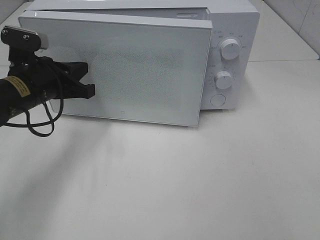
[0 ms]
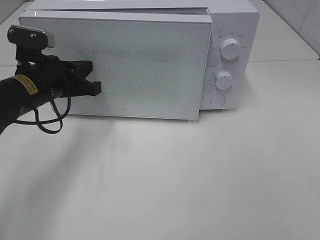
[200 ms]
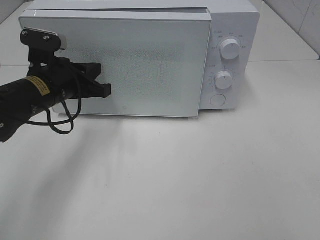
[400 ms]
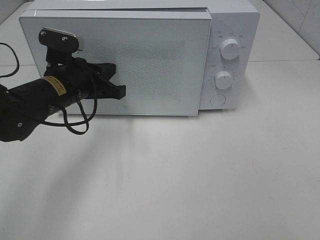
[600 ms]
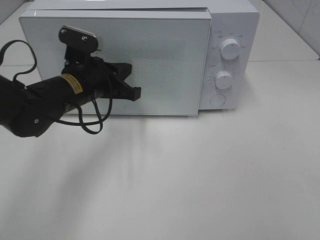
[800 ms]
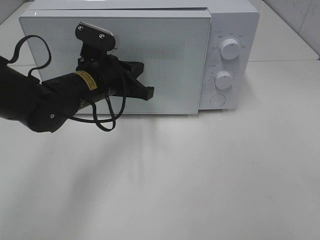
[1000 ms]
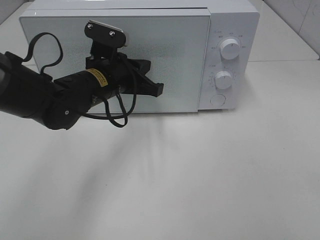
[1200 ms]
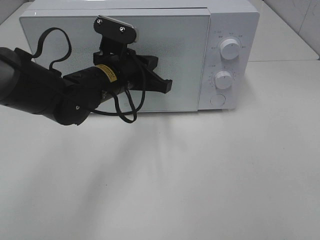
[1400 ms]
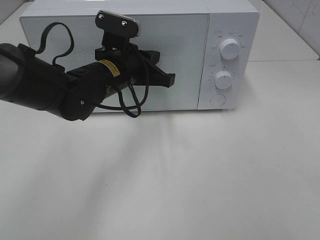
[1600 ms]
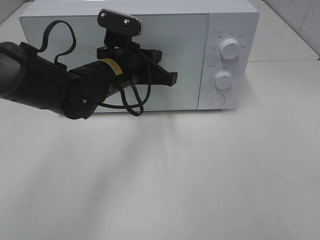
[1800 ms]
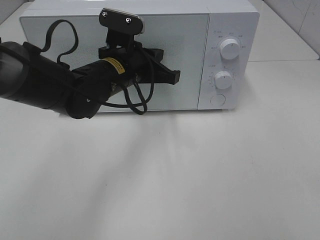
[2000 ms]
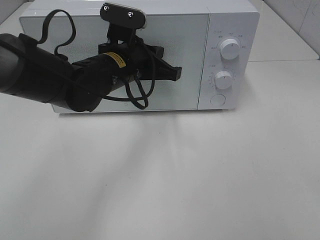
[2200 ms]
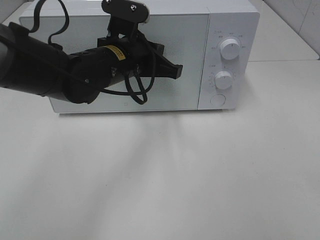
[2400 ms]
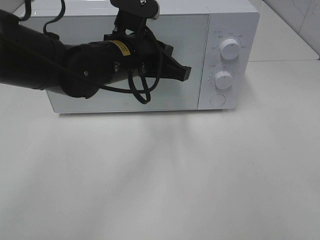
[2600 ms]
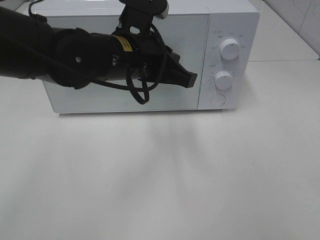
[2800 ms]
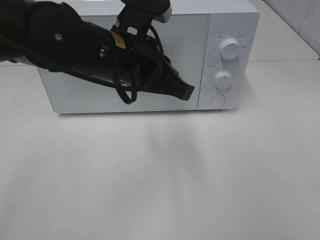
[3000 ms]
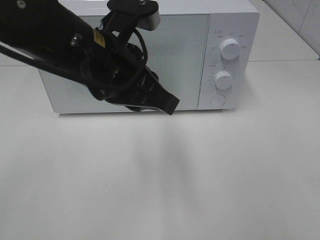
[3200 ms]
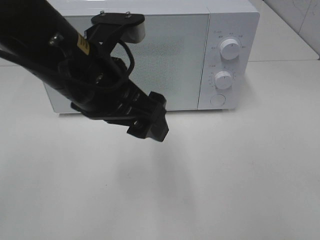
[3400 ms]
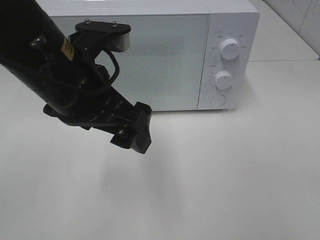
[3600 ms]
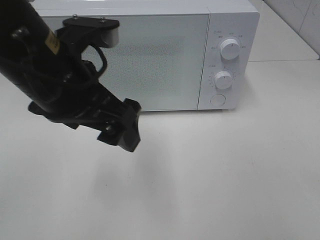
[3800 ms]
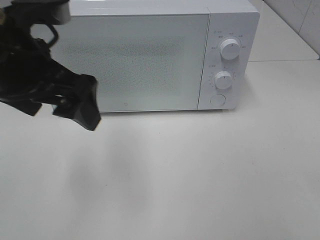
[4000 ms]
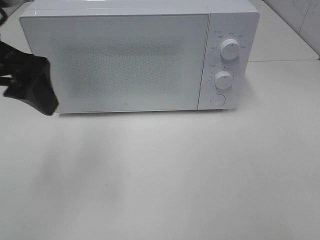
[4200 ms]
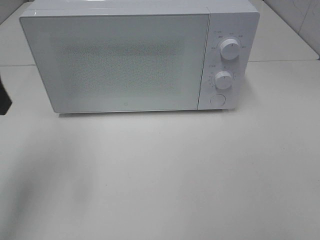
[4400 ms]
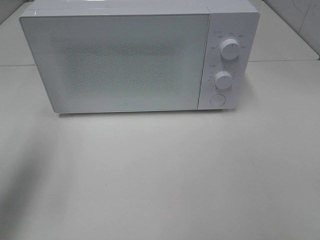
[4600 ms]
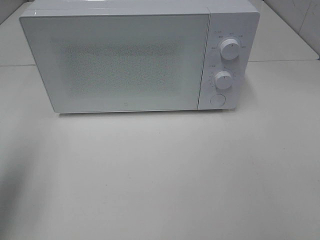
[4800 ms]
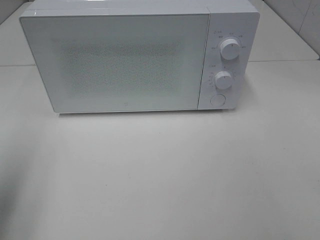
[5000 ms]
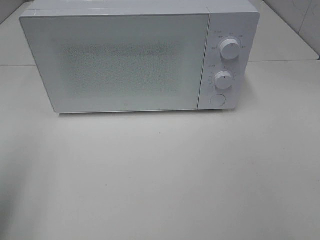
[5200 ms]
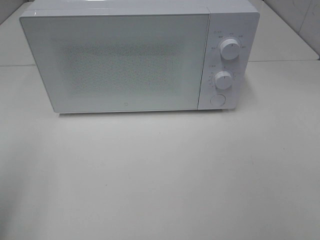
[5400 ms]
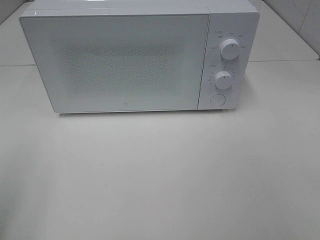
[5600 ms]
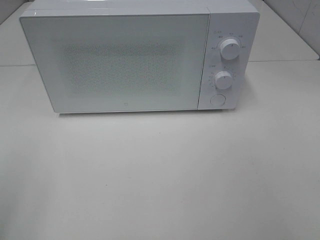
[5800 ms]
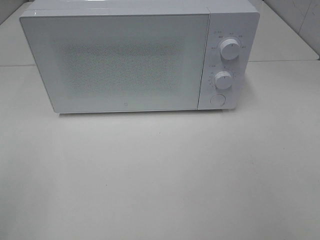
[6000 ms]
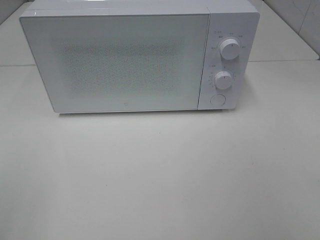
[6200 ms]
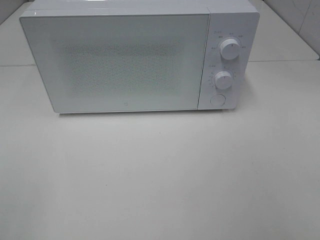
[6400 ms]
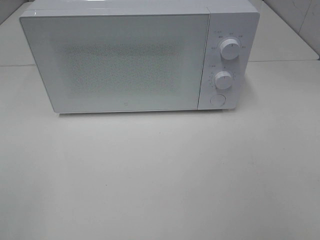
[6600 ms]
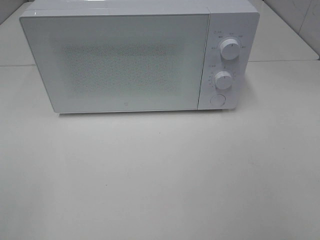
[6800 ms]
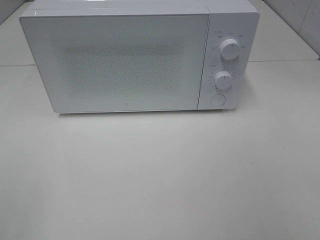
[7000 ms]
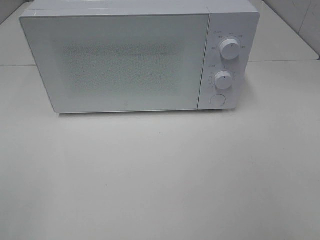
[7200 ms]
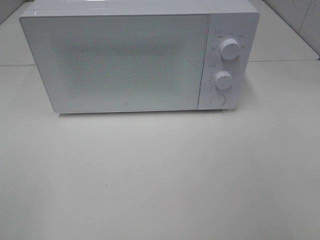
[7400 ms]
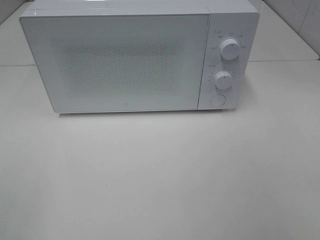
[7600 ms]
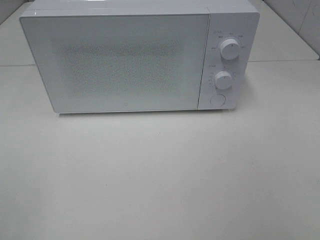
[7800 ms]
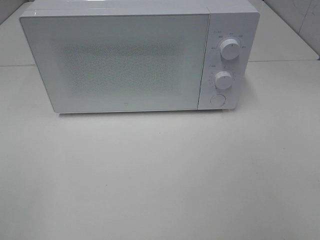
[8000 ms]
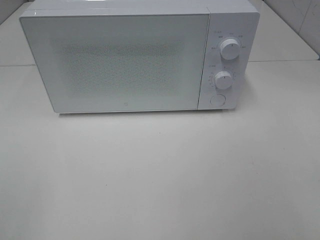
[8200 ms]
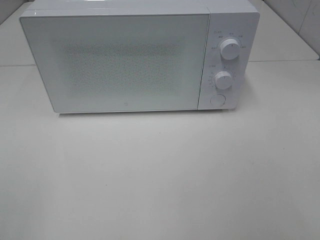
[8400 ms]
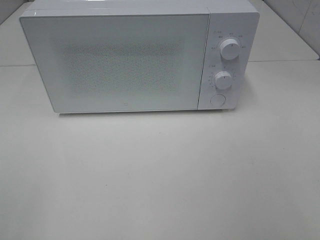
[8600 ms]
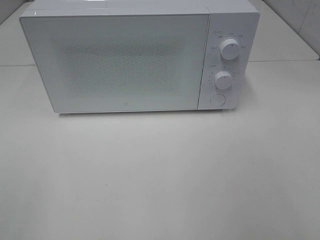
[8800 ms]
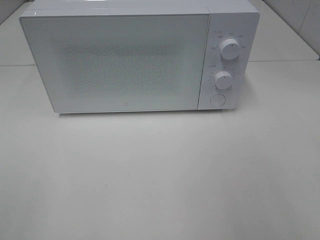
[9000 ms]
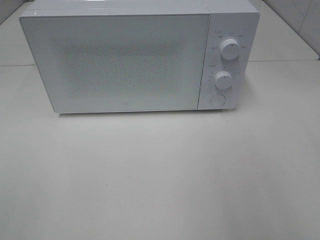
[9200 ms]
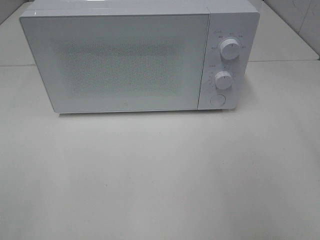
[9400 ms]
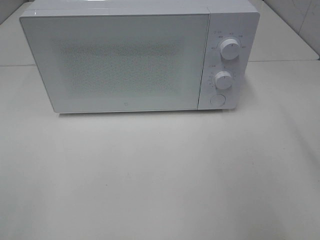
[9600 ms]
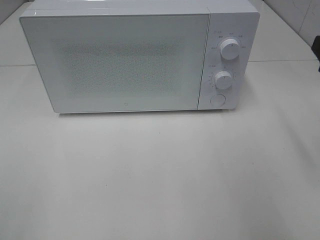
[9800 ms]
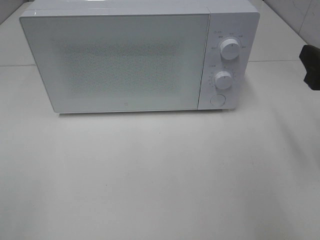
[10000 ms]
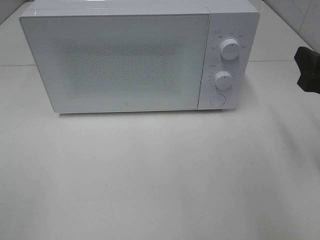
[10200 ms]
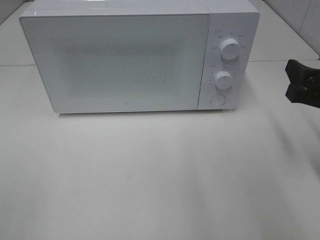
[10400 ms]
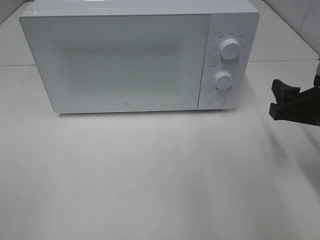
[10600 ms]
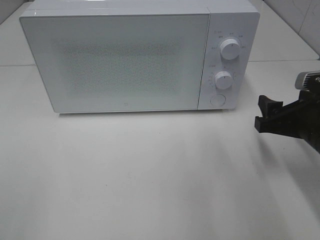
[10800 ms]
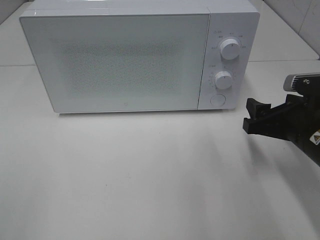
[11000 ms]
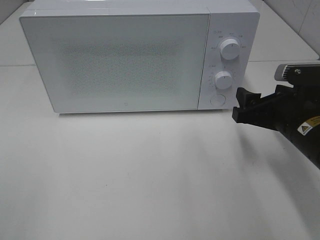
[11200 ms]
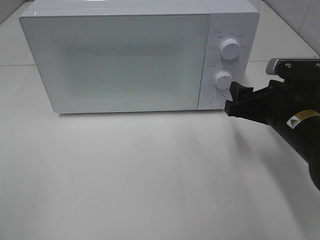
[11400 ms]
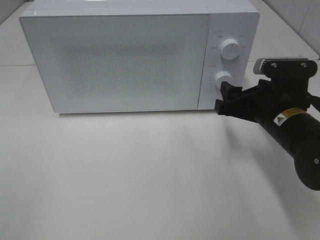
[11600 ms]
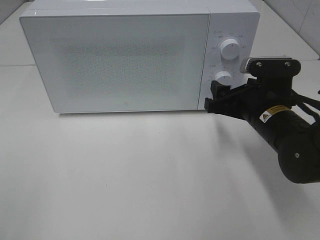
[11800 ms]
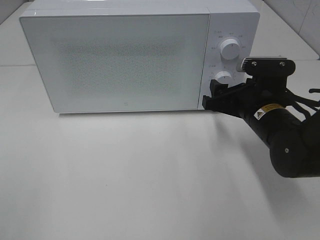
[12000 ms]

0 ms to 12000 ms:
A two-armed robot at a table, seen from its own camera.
Task of the whole recording: Heat the burger.
0 ms to 1600 ms: The left gripper moves to the right, about 15 cm.
1600 ms to 3000 ms: The left gripper heads backward and upward, covering about 10 cm.
3000 ms to 4400 ms: The left gripper goes about 20 cm to the left, and opens.
4400 ms to 6000 ms: The left gripper shifts approximately 20 cm backward.
9000 ms to 10400 ms: The right gripper goes about 20 cm forward and downward.
10400 ms to 12000 ms: The right gripper shifts some 15 cm to the left, forward and downward.

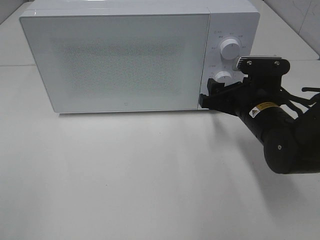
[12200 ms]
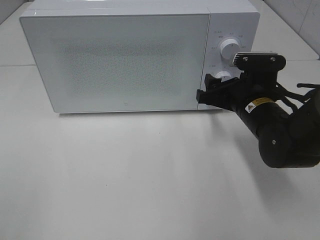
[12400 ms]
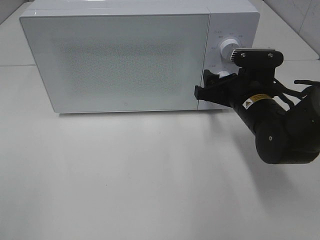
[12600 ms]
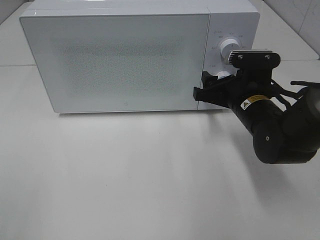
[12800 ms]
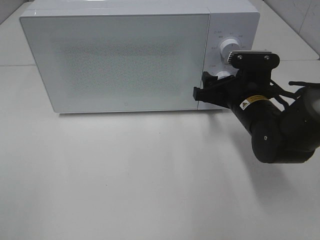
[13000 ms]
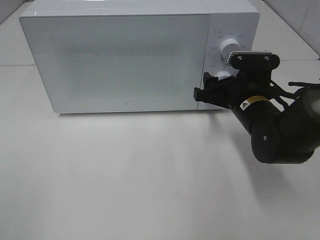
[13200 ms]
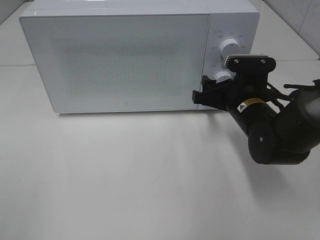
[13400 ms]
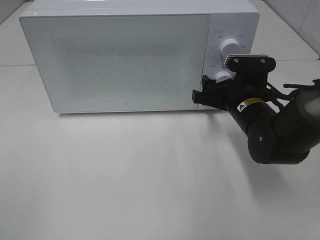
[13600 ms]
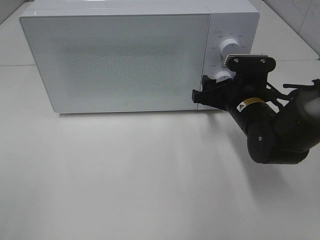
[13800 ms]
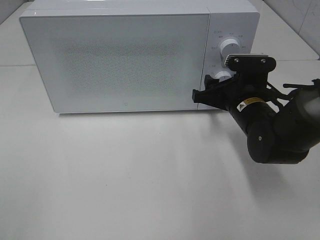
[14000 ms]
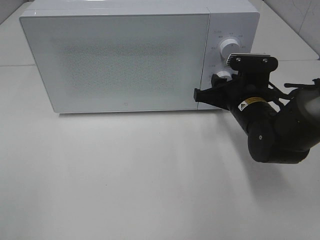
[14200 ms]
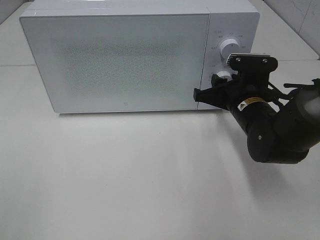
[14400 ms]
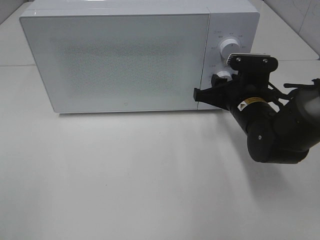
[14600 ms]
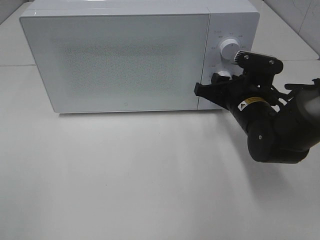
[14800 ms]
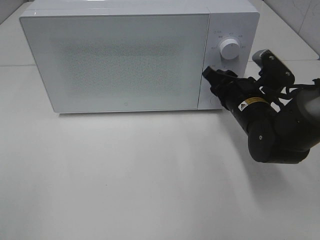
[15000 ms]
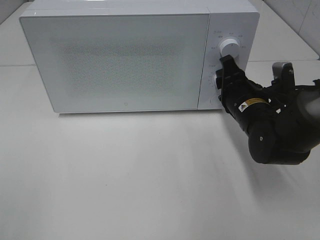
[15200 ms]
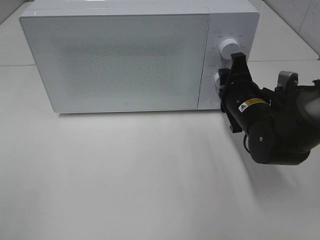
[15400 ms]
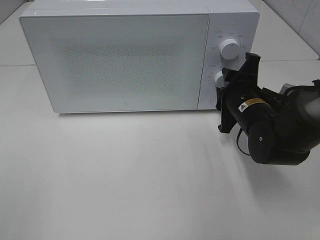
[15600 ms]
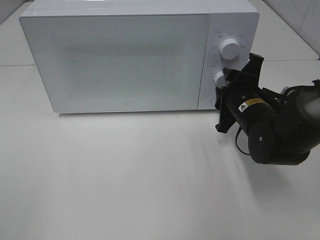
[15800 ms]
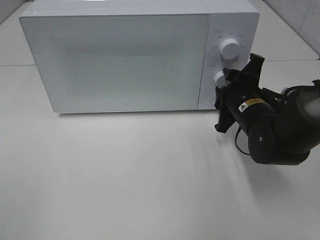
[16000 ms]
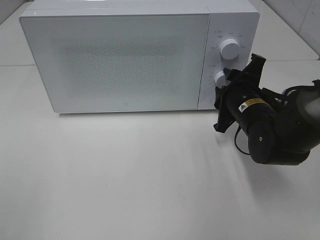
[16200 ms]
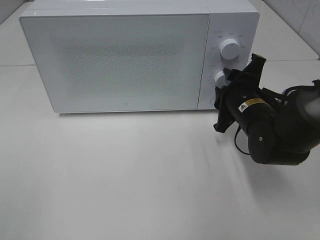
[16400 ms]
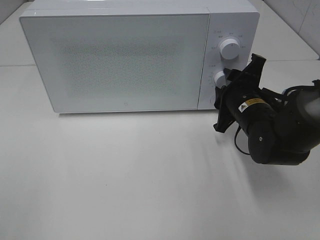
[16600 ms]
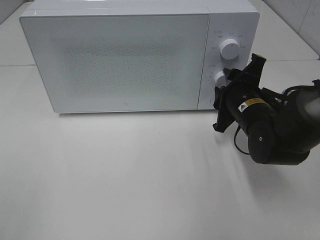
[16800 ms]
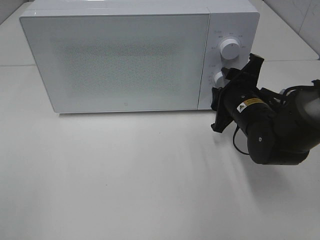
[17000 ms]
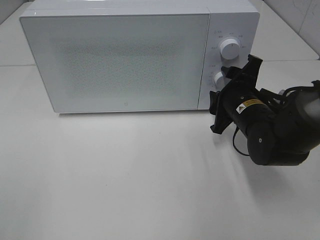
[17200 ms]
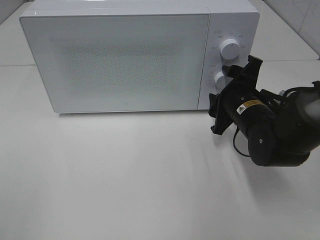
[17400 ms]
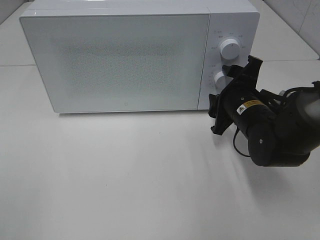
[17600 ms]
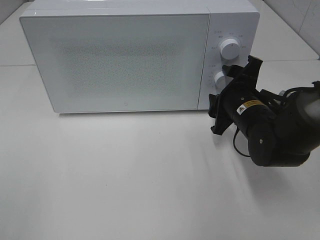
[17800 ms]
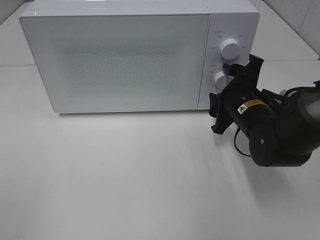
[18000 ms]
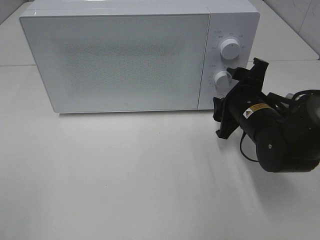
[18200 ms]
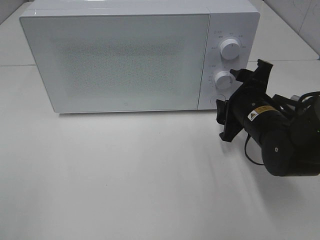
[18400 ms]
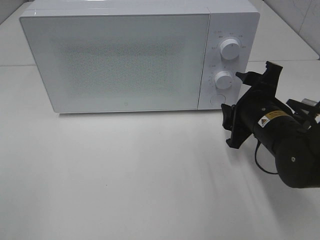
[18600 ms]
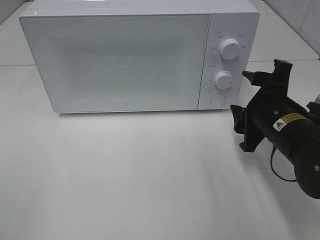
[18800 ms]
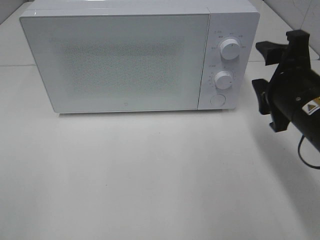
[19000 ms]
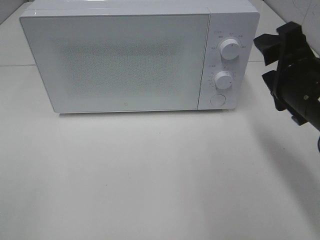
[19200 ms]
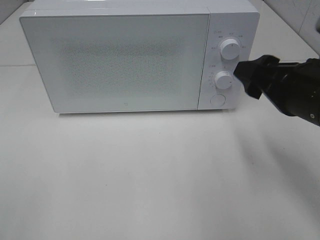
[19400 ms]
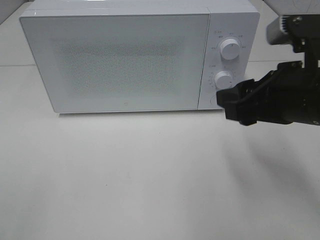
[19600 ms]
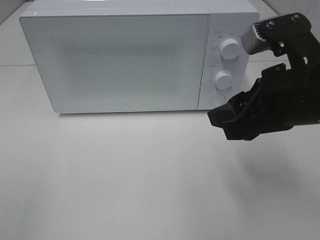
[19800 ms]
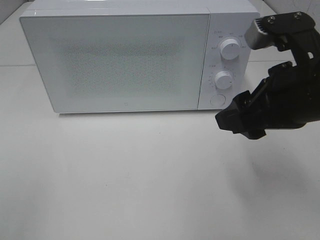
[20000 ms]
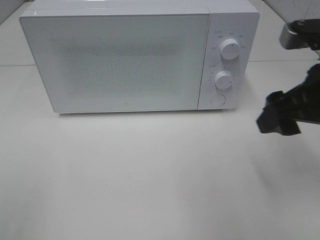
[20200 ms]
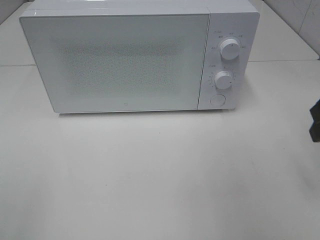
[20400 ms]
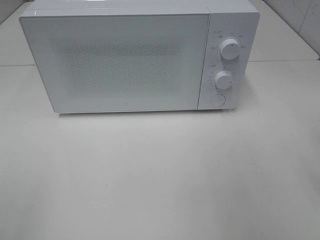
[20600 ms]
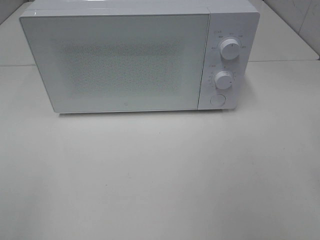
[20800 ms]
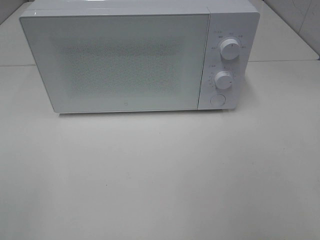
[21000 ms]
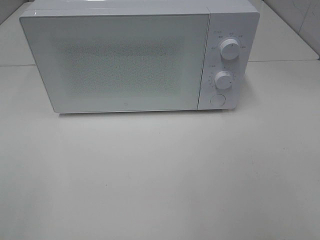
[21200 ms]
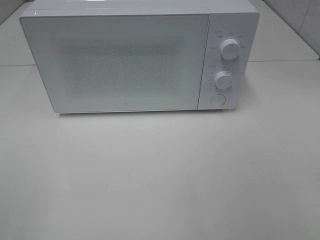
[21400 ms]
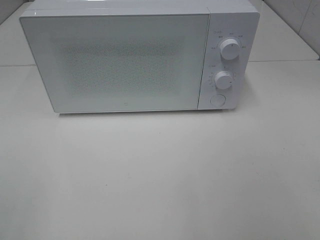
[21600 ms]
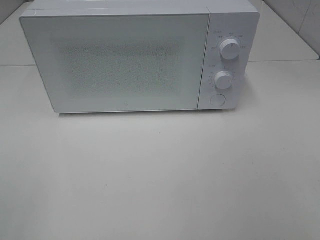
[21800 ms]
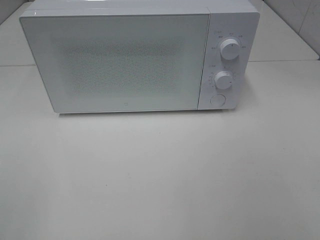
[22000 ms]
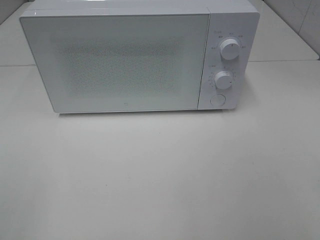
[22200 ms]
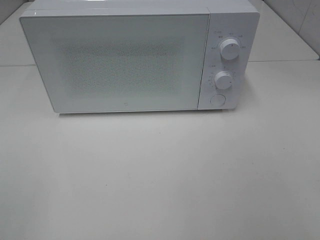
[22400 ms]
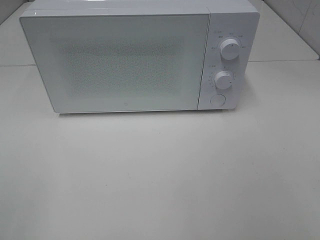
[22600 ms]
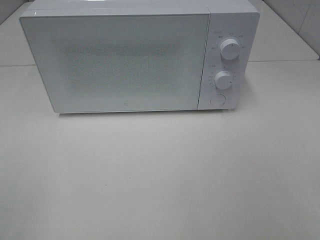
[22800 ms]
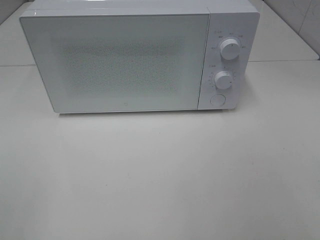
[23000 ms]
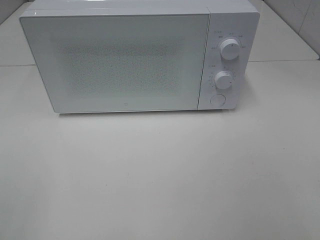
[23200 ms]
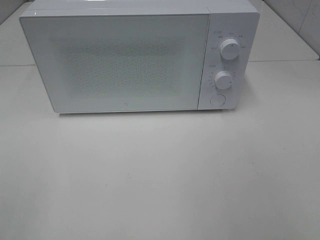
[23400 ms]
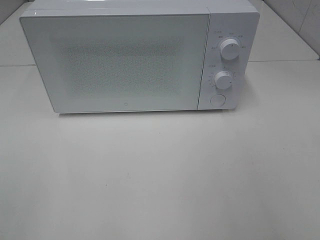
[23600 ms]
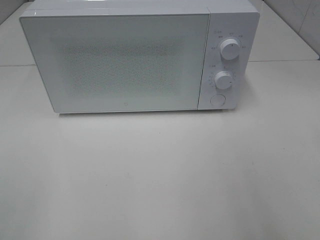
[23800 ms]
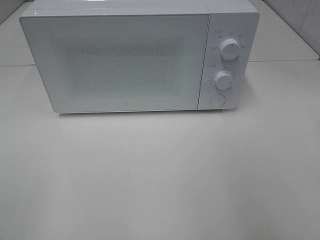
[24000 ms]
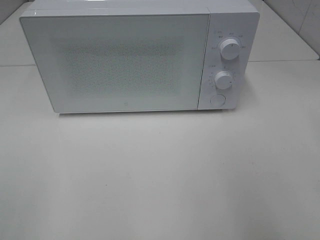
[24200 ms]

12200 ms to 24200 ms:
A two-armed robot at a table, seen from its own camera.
Task of the whole recording: Heat the burger.
Step, 12200 ms to 17000 ms: Right hand: twist timer button.
12200 ms to 13800 ms: The grippers stay close to where they were, moving slightly.
16600 ms to 18200 ms: The grippers make only small movements.
18200 ms to 19800 ms: The right gripper travels upward and backward by roughly 15 cm.
19800 ms to 21200 ms: The right gripper goes some 20 cm backward and to the right.
